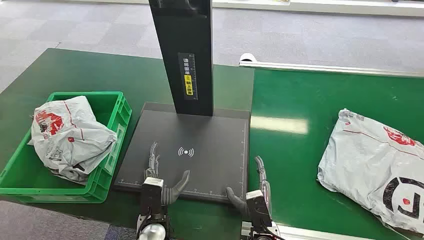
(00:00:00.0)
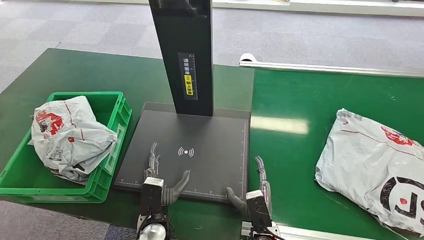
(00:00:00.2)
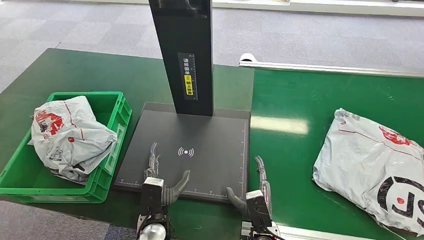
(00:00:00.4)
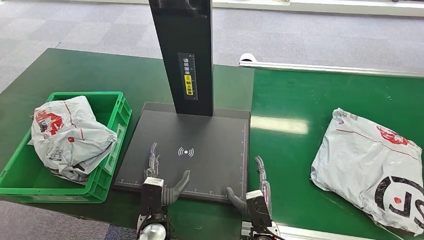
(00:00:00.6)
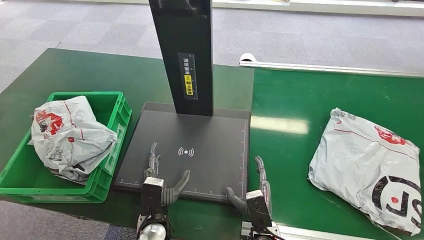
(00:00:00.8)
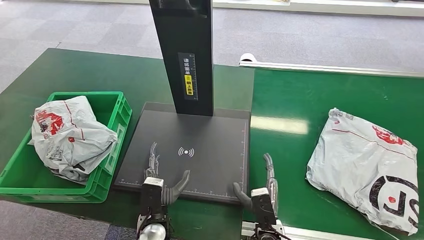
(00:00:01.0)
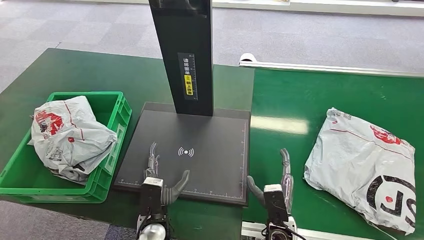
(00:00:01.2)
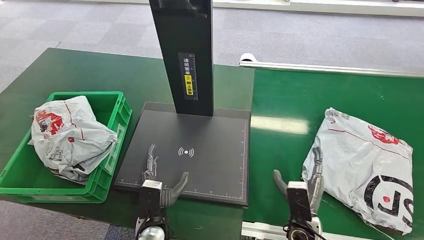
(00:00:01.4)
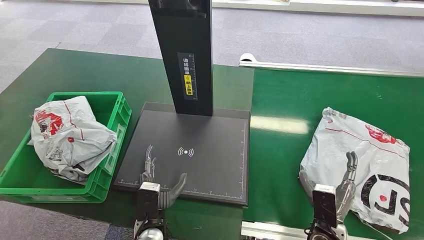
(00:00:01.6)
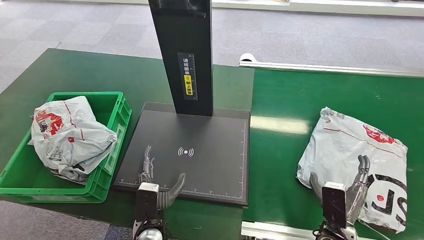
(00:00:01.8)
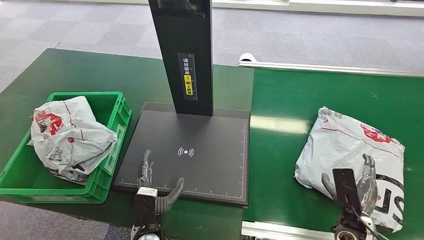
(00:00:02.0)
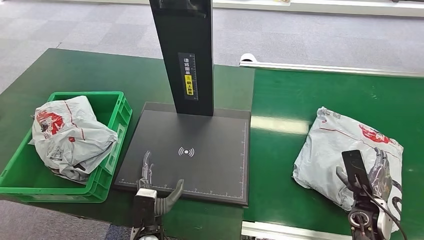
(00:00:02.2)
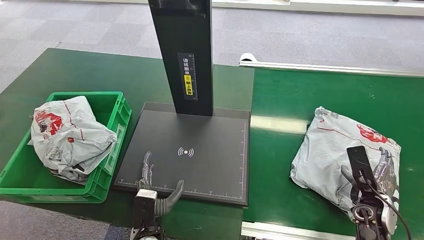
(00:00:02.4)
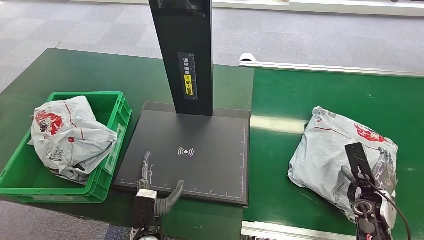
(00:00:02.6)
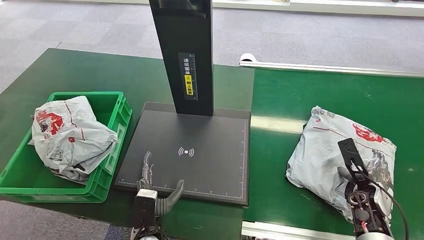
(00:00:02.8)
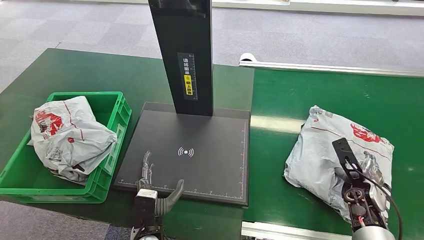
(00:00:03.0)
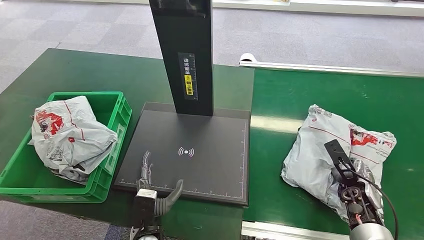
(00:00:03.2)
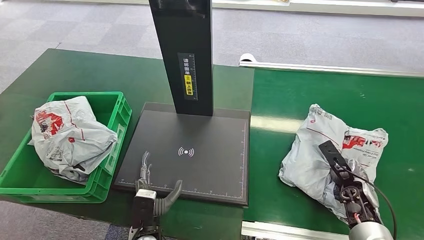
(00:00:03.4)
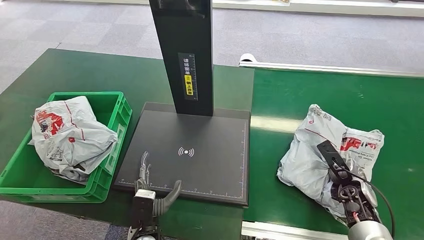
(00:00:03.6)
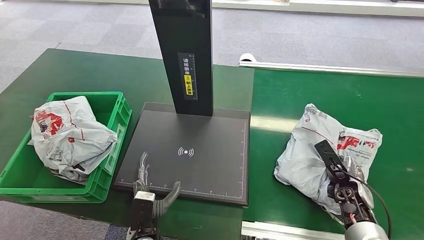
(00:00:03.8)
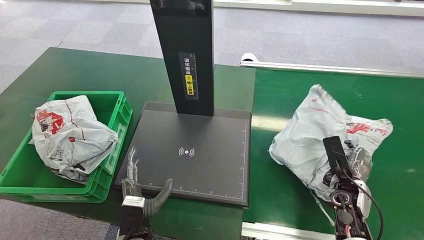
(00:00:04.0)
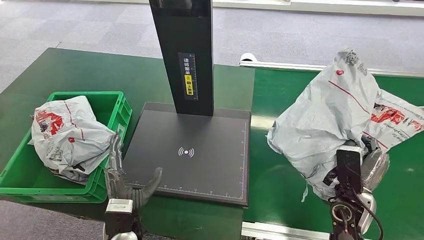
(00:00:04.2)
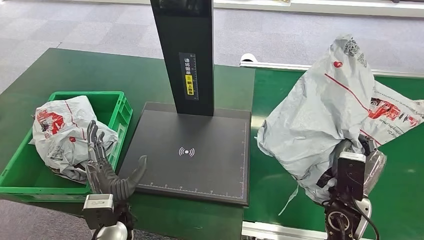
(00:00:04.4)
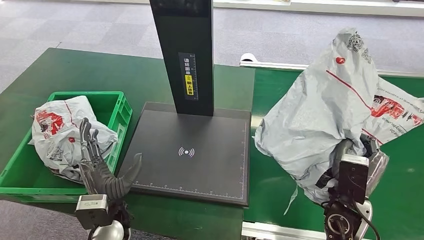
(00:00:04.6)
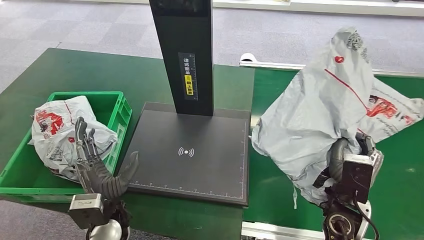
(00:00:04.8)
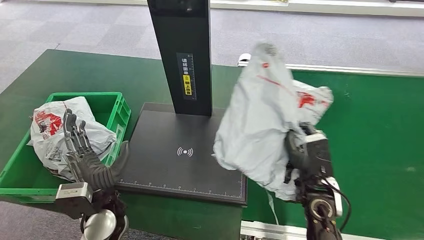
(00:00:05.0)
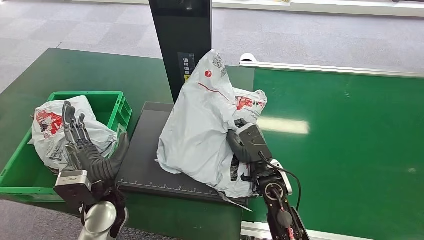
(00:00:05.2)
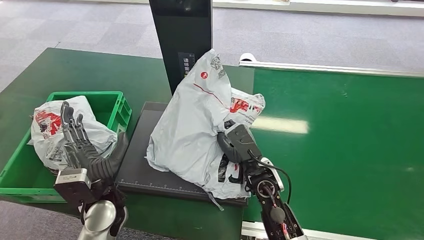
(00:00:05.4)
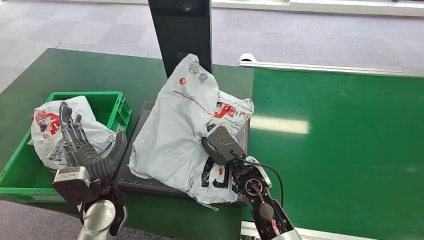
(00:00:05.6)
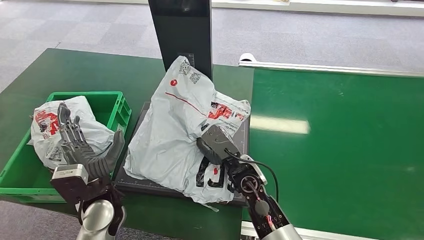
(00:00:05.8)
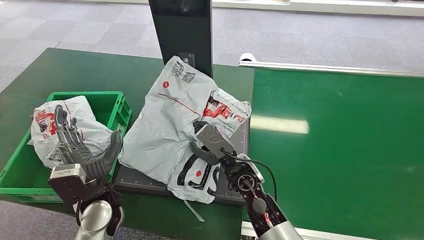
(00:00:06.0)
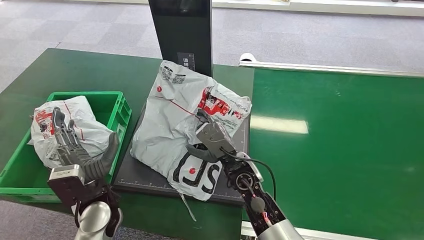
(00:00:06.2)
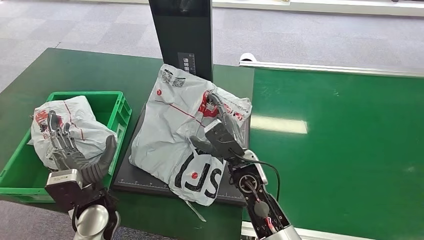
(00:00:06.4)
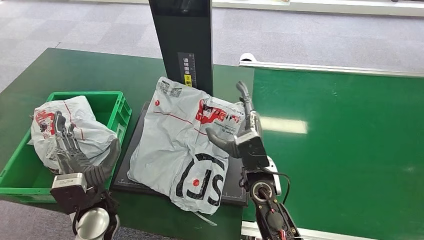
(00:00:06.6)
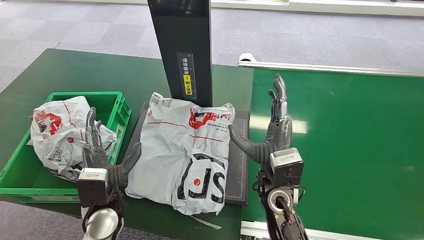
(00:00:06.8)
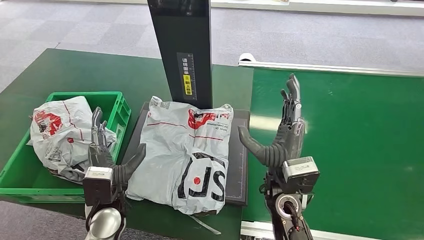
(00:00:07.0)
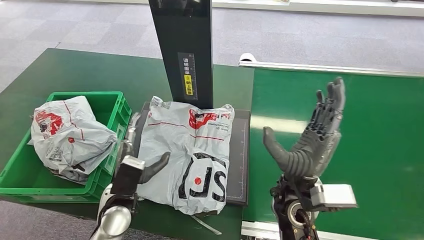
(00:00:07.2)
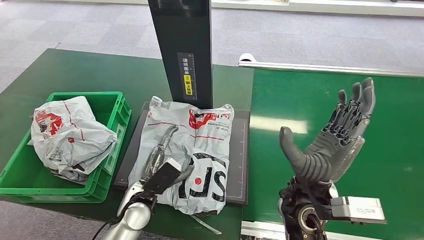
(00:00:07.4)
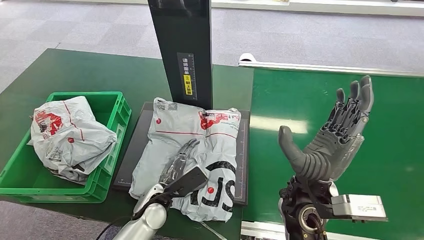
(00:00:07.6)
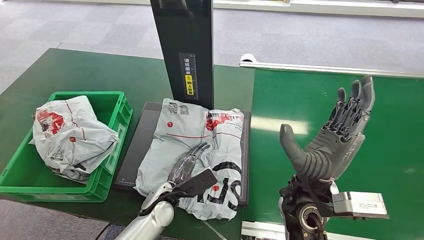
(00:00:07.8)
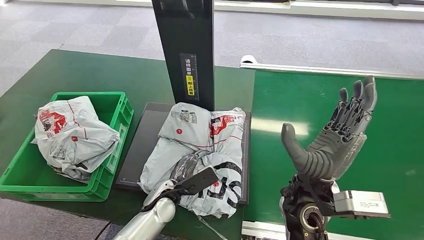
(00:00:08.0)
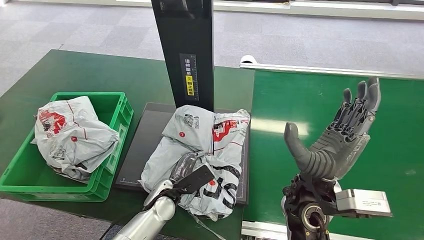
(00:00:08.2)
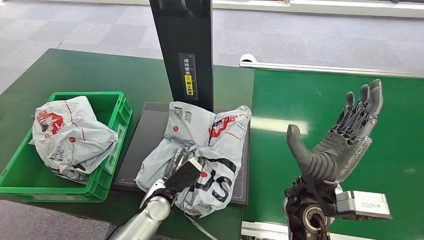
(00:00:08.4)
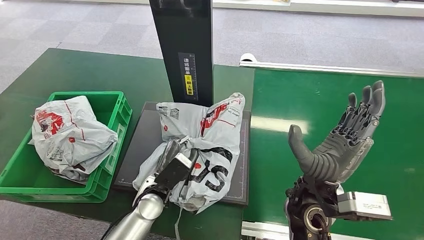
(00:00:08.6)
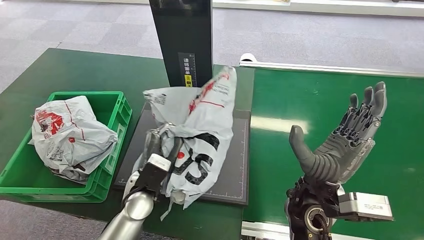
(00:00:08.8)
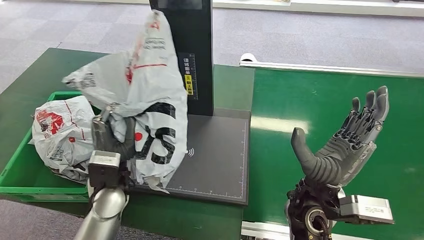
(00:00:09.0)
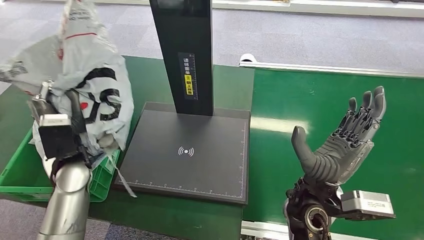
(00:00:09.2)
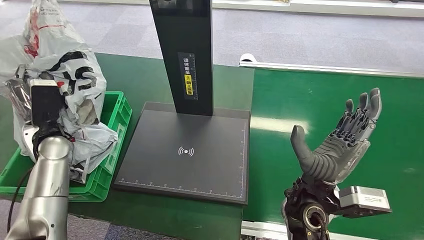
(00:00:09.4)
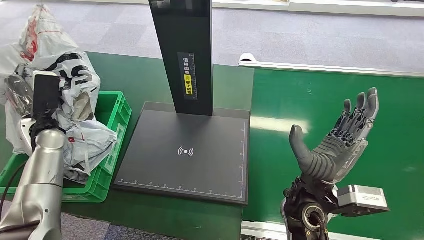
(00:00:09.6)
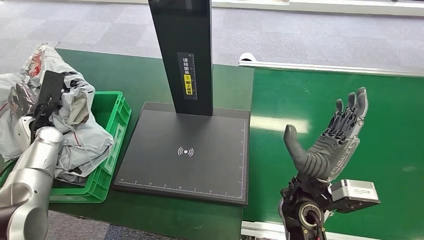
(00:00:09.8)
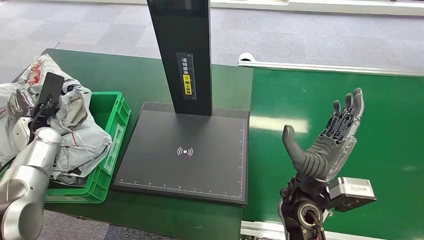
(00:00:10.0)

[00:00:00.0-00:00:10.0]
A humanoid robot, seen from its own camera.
Task of the whole recording: Weigh the package on the weighing device and place it in the left basket.
Step, 00:00:00.0 to 00:00:04.6: Pick up the package from the conveyor belt.
Step, 00:00:04.8 to 00:00:07.2: Place the package onto the inbound machine.
Step, 00:00:07.4 to 00:00:09.2: Pick up the package from the inbound machine.
00:00:01.4 to 00:00:02.8: The right hand moves to the right and forward, some 20 cm.
00:00:02.8 to 00:00:04.2: The left hand heads upward, covering about 5 cm. The right hand is displaced to the left by about 10 cm.

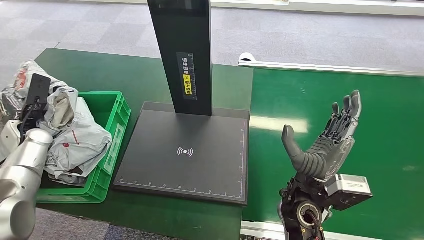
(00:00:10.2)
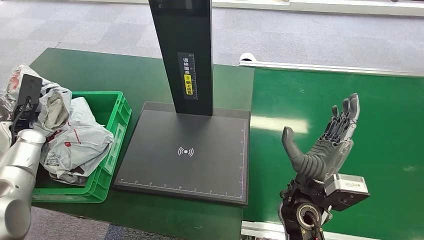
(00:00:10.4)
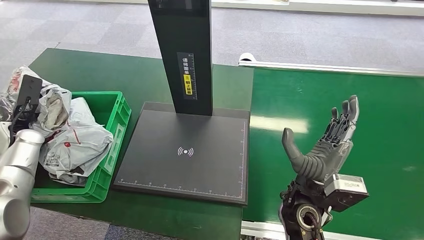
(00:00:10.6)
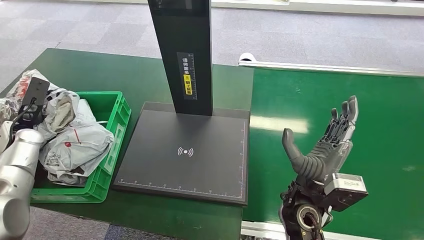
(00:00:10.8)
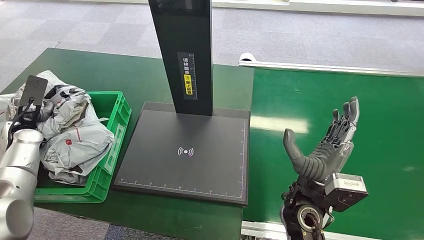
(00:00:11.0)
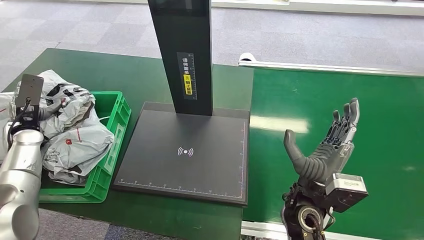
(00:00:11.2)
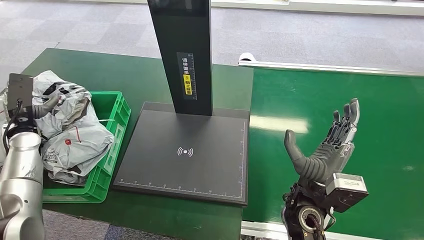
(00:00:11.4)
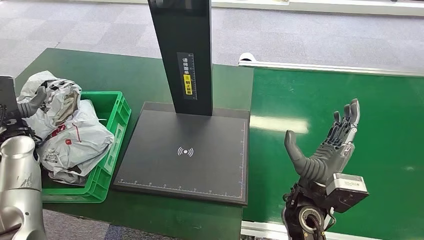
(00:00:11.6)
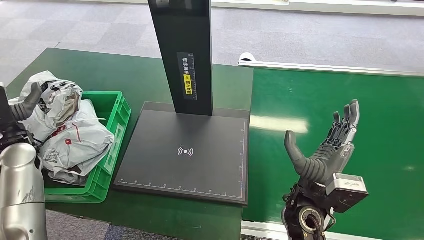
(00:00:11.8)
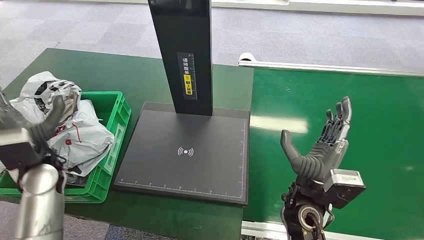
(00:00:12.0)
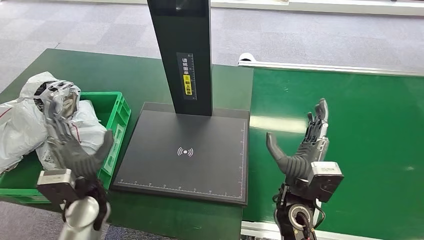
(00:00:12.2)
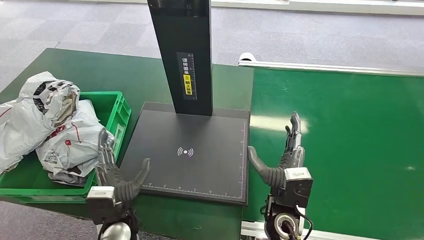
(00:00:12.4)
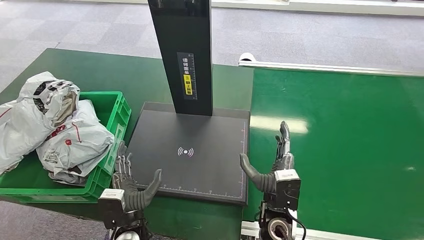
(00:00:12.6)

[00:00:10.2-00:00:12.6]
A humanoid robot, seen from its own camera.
Task of the whole recording: Weigh the package on the weighing device and place it in the left basket.
Step, 00:00:10.2 to 00:00:12.6: Place the package into the parcel locker.
00:00:11.4 to 00:00:12.6: The right hand travels downward by roughly 5 cm; the left hand is displaced to the right and backward by about 40 cm.
